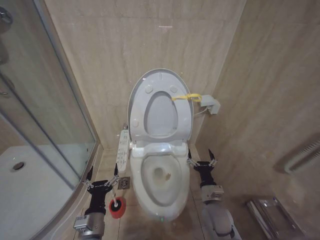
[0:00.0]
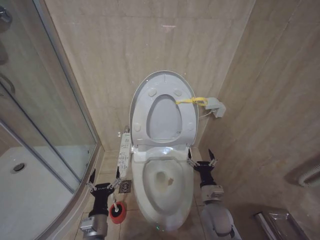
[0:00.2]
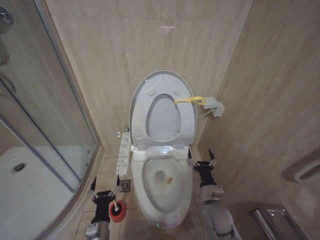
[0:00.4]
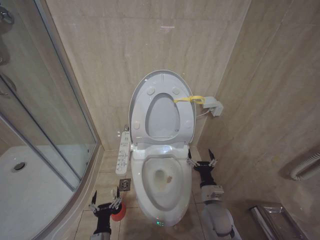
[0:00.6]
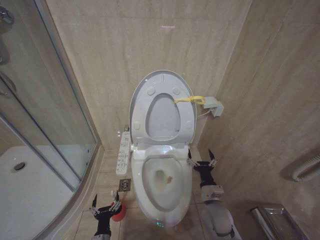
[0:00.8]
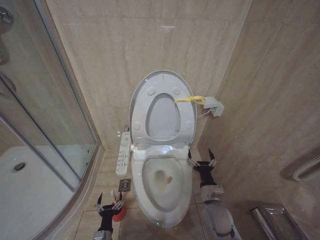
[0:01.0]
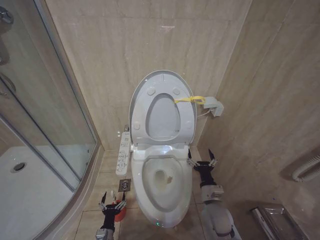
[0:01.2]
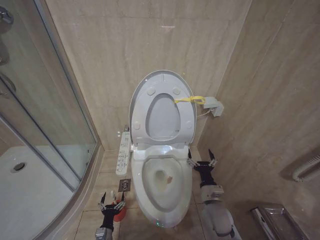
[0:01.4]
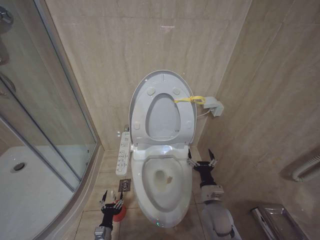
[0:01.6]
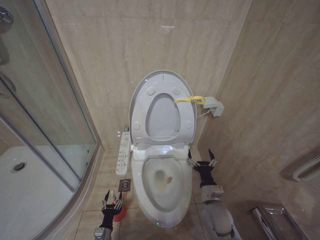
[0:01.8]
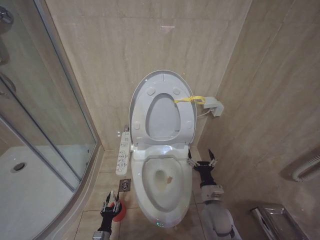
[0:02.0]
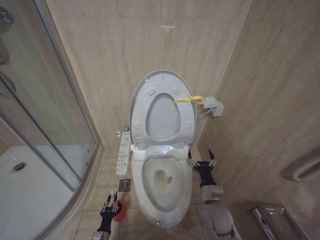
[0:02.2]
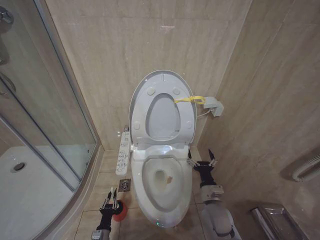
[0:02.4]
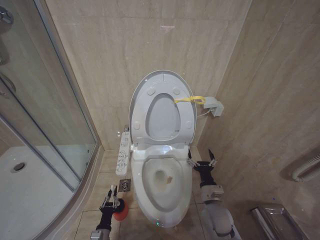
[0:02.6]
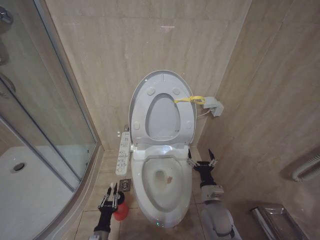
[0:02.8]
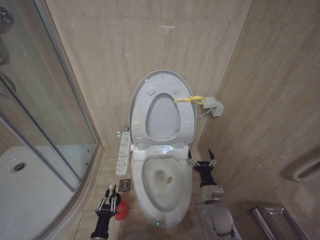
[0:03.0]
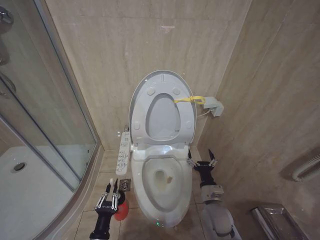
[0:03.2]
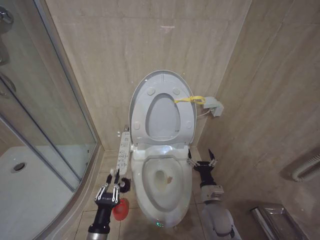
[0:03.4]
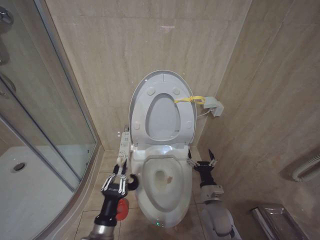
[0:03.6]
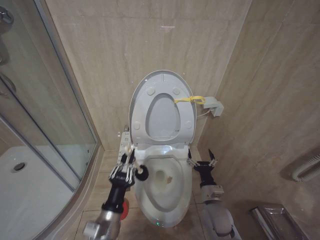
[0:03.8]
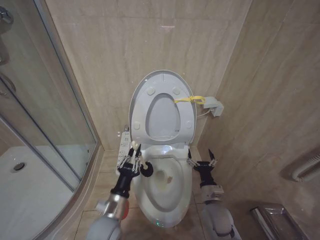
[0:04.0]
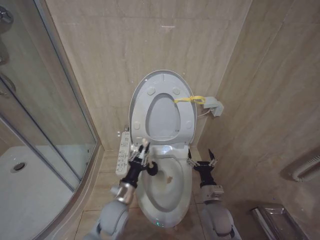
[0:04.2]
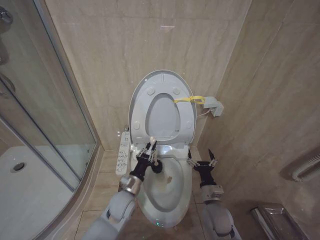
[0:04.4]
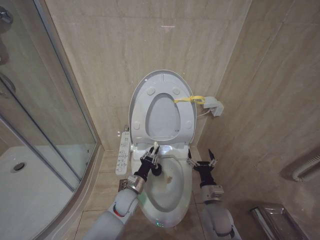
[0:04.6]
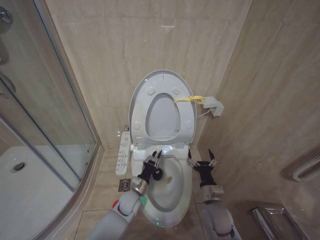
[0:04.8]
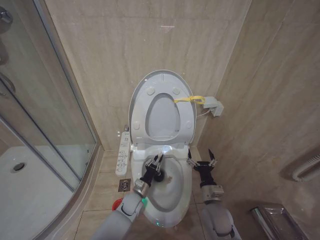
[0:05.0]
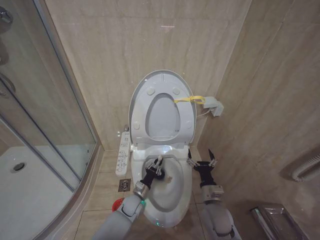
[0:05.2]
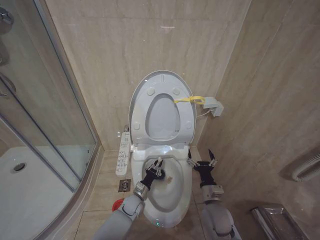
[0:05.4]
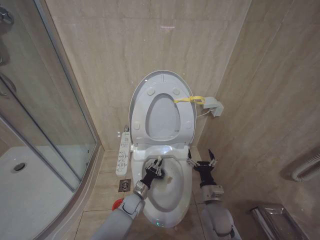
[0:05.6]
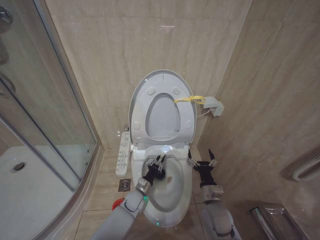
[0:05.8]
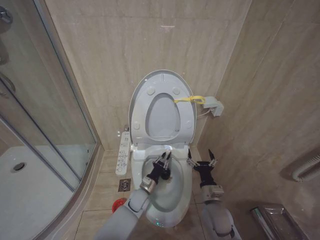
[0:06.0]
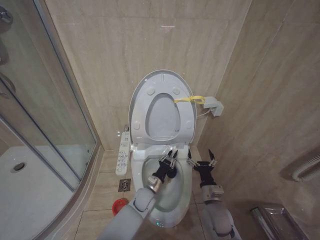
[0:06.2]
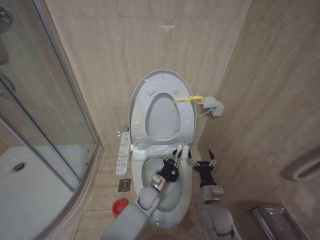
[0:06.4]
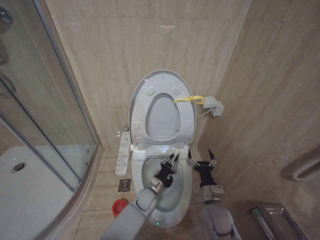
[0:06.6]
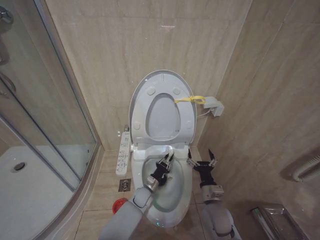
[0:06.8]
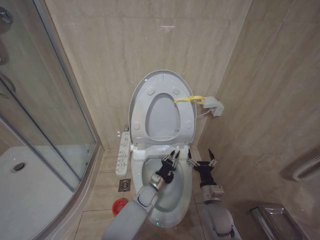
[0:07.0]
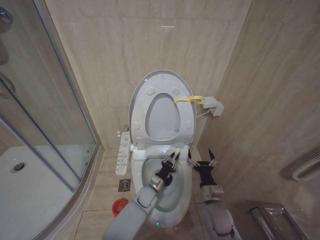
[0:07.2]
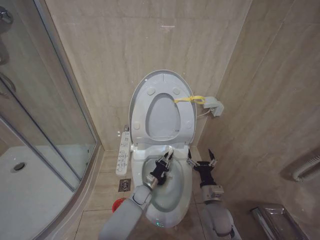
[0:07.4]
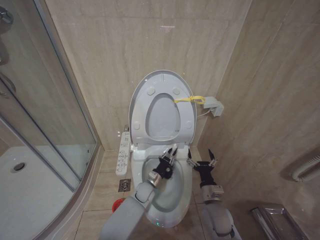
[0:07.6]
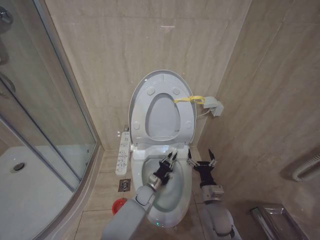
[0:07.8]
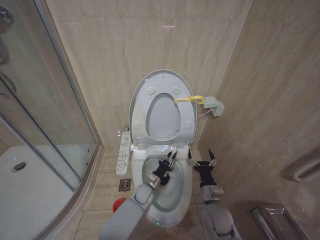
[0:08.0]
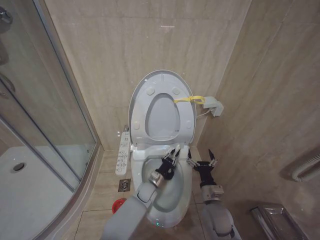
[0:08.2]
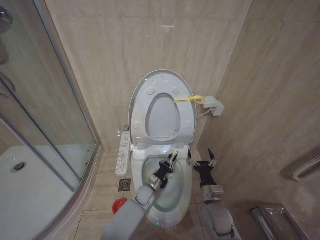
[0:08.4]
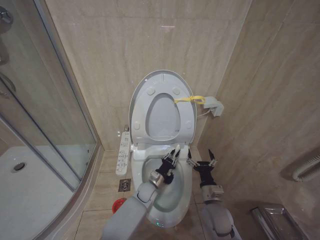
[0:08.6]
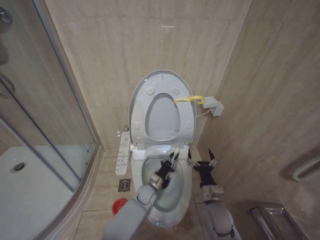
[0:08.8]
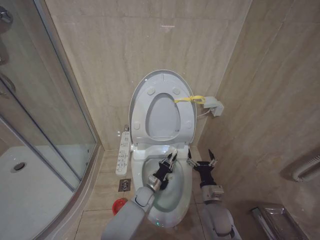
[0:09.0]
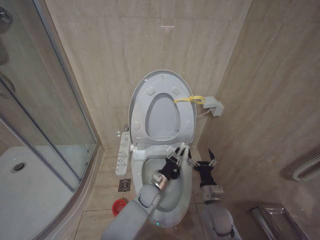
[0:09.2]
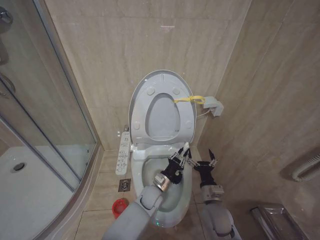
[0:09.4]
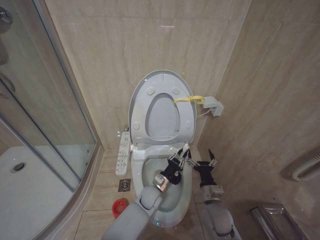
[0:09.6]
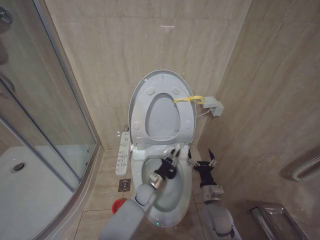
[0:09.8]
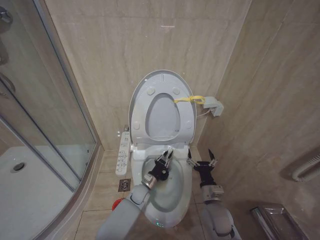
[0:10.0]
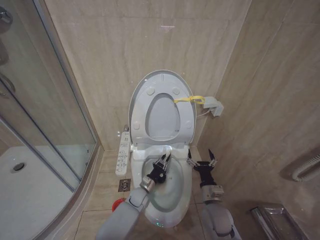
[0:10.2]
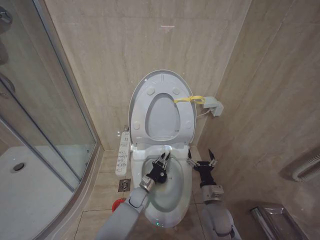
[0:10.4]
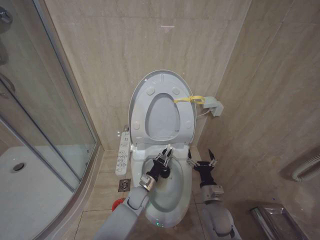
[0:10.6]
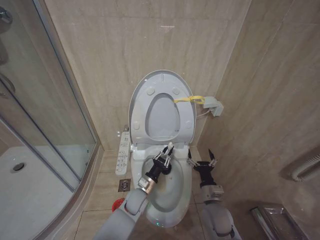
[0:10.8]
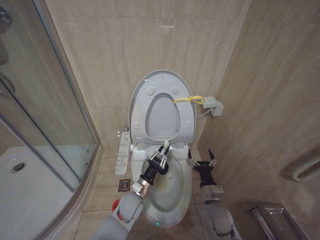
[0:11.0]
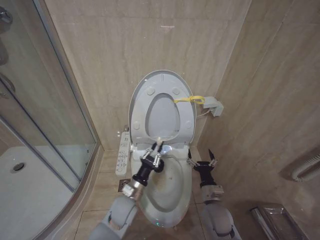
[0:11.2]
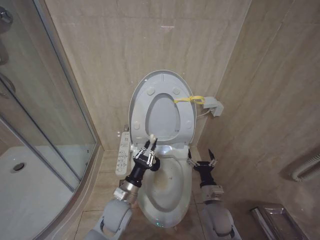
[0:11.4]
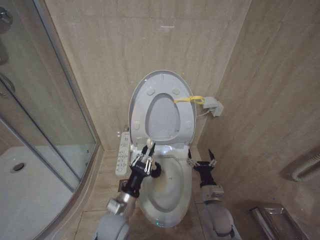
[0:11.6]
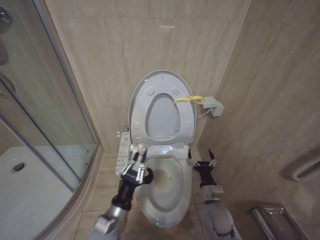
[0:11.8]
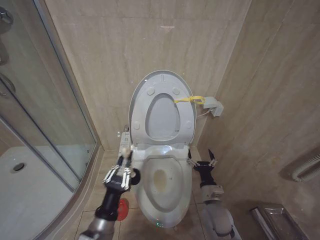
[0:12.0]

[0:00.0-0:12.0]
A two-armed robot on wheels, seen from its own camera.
Task of the whole recording: Open the toilet lid, clean the toilet bowl with a toilet brush, close the toilet lid, and flush.
0:00.0 to 0:01.6: The left gripper shifts about 25 cm downward.
0:01.6 to 0:03.0: The left gripper travels upward and backward by roughly 10 cm, and closes up.
0:03.0 to 0:04.4: The left gripper heads upward, forward and to the right, covering some 25 cm.
0:04.4 to 0:06.0: The left gripper moves downward, forward and to the right, some 15 cm.
0:06.0 to 0:09.0: The grippers stay close to where they were, moving slightly.
0:09.0 to 0:10.4: The left gripper moves roughly 5 cm upward and comes back.
0:10.4 to 0:12.0: The left gripper travels backward, upward and to the left by approximately 30 cm.

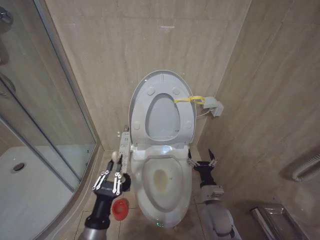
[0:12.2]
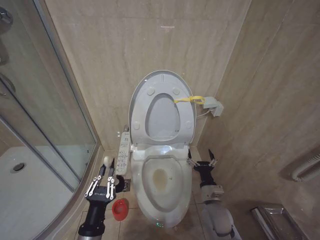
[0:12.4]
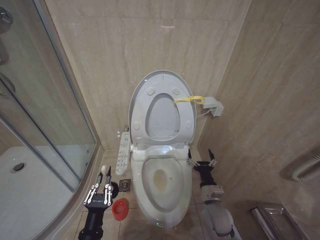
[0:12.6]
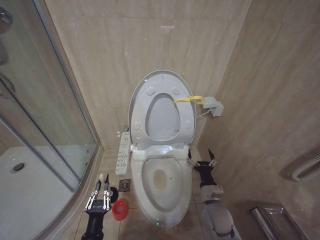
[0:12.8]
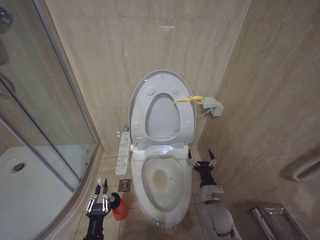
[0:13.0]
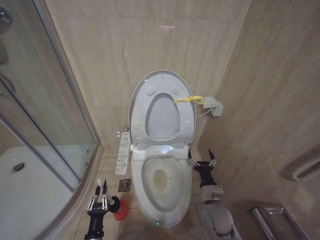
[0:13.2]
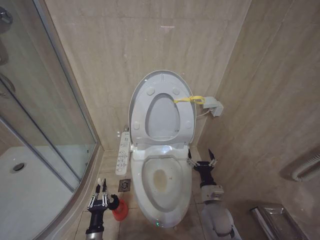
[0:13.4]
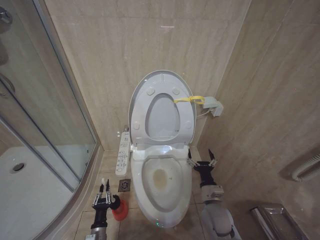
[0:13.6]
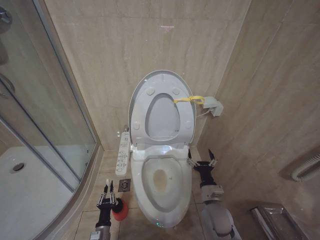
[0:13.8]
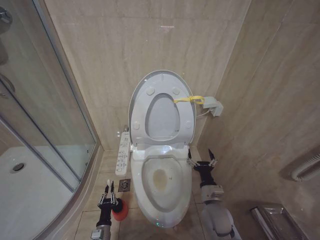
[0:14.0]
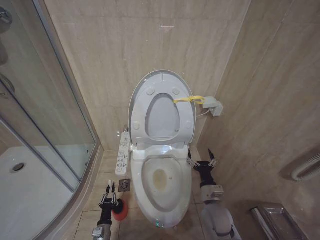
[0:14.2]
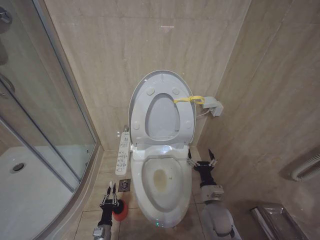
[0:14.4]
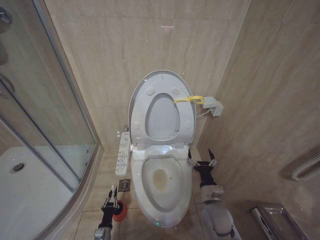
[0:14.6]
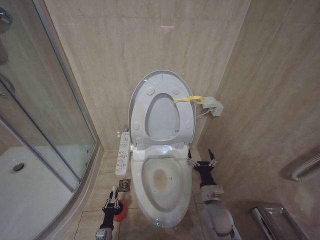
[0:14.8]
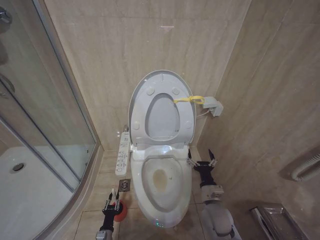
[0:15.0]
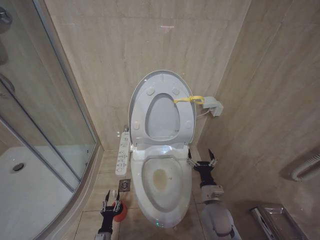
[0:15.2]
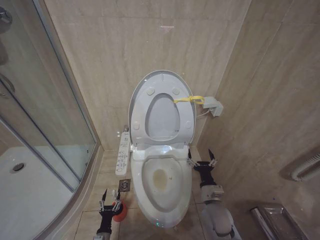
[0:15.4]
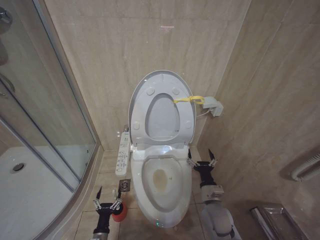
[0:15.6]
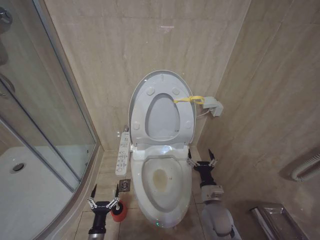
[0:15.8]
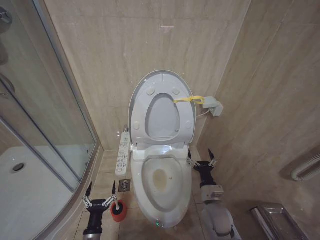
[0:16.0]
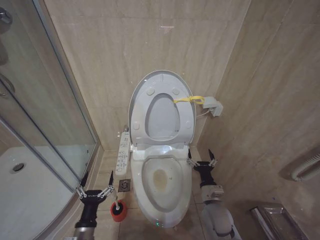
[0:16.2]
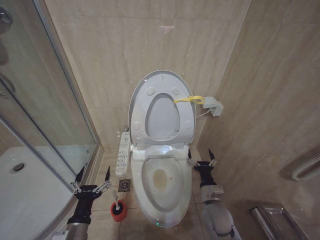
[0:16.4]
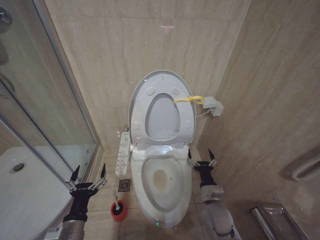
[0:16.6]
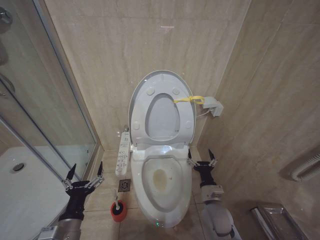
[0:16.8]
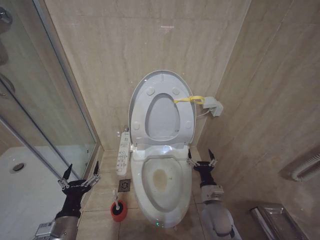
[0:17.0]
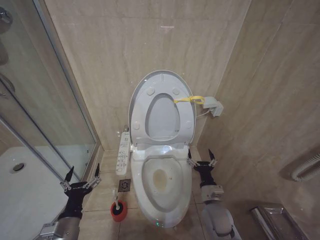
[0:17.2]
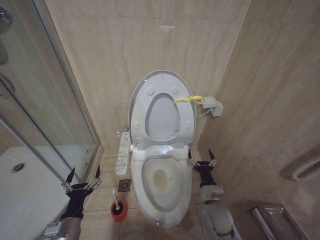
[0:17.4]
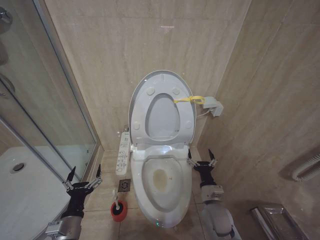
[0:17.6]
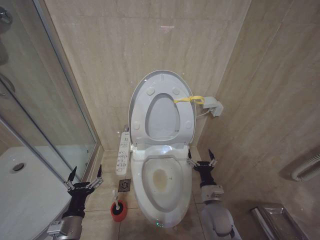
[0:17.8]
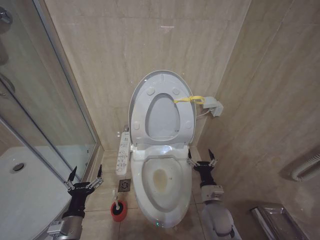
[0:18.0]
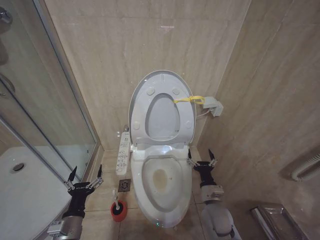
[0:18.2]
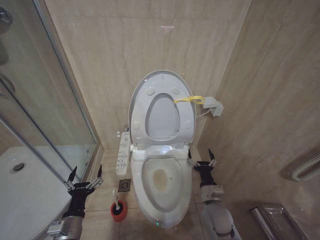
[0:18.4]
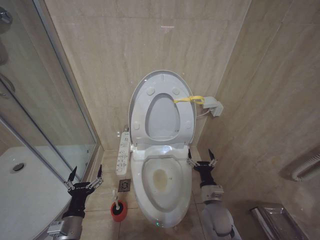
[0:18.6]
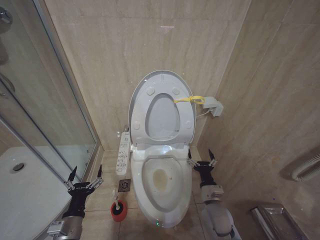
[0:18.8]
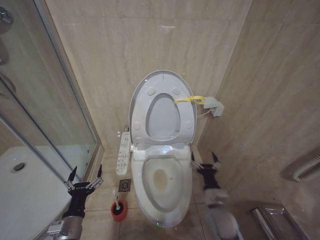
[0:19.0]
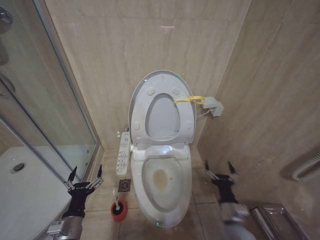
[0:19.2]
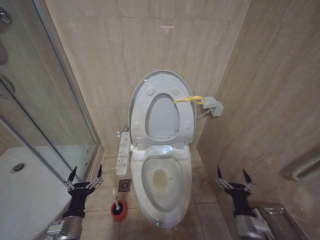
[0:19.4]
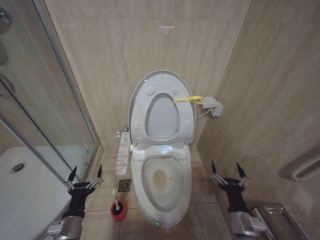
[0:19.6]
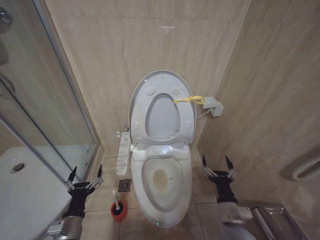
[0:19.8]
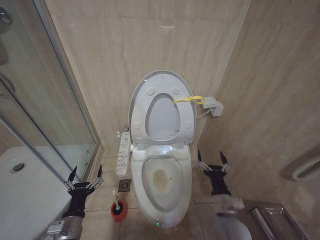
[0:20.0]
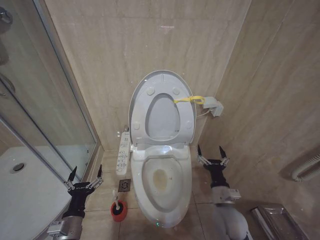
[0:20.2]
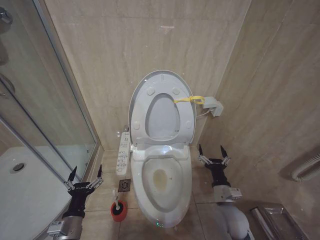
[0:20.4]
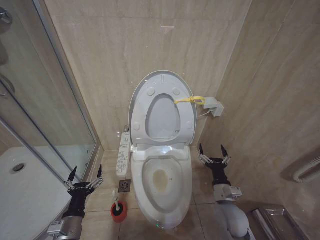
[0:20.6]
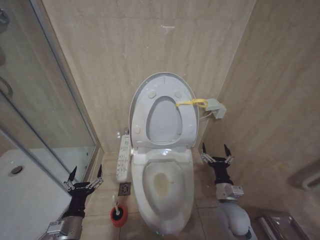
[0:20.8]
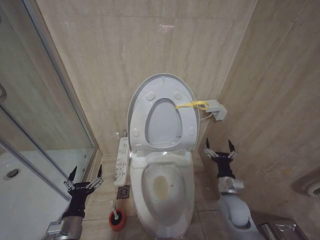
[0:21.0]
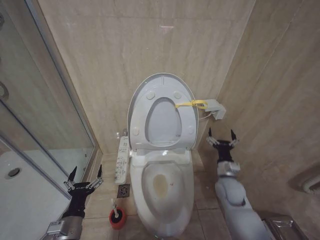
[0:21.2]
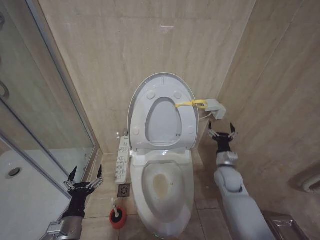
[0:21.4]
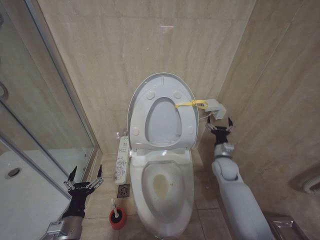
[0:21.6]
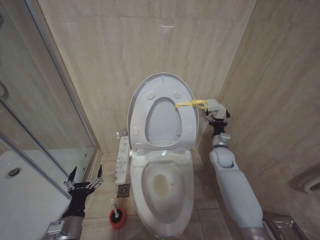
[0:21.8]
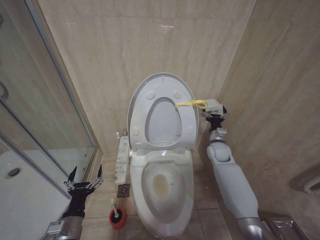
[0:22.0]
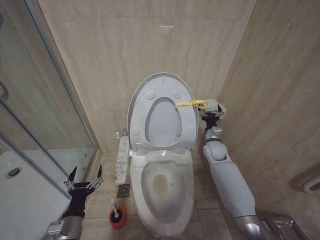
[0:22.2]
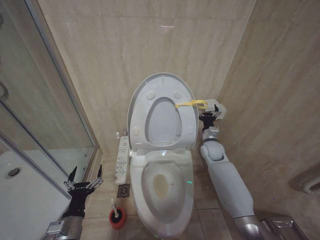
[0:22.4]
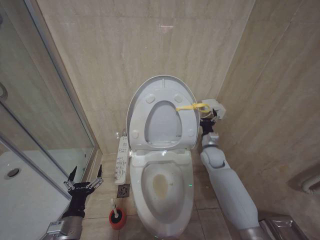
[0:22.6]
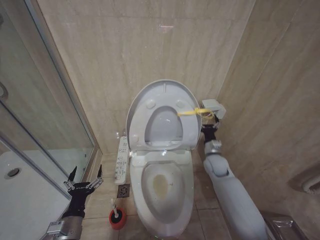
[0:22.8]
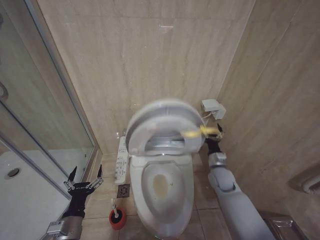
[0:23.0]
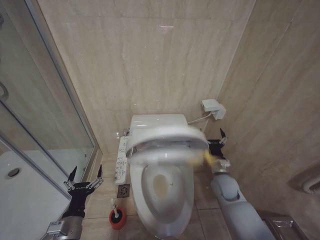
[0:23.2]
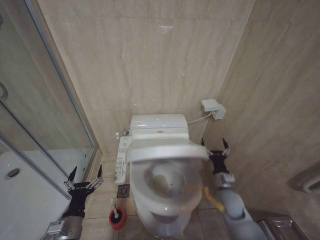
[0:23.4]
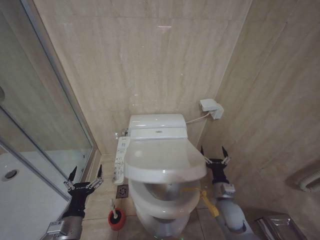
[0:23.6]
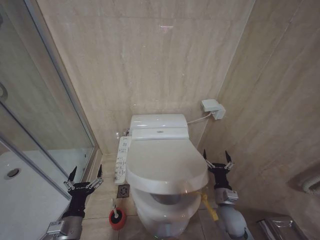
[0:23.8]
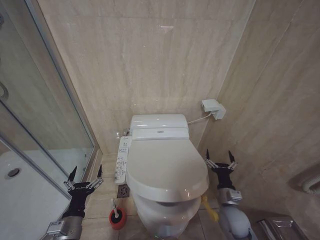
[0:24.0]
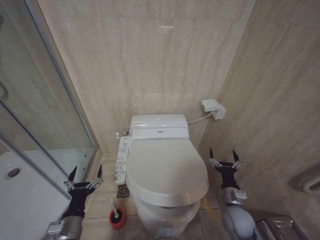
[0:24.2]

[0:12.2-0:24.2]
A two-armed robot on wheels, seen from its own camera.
Task of the whole recording: Open the toilet lid, clean the toilet bowl with a toilet brush, close the toilet lid, and flush.
0:12.2 to 0:13.8: The left gripper is displaced downward by some 25 cm.
0:13.8 to 0:15.2: The left gripper is displaced downward by roughly 5 cm.
0:15.2 to 0:16.6: The left gripper goes roughly 30 cm upward, and opens its fingers.
0:16.6 to 0:18.2: The grippers make only small movements.
0:18.2 to 0:19.8: The right gripper shifts roughly 10 cm backward.
0:19.8 to 0:21.2: The right gripper goes about 15 cm forward.
0:21.2 to 0:22.6: The right gripper goes some 15 cm forward and upward.
0:22.6 to 0:24.2: The right gripper is displaced backward and downward by roughly 25 cm.
